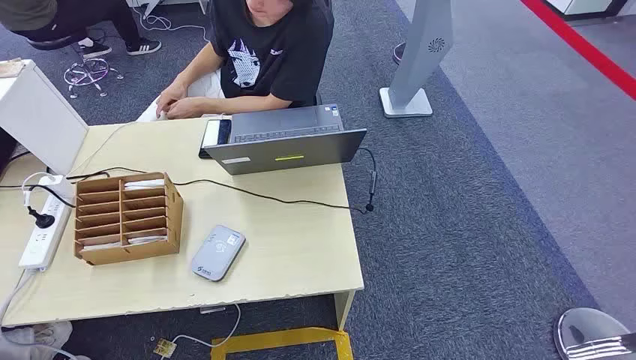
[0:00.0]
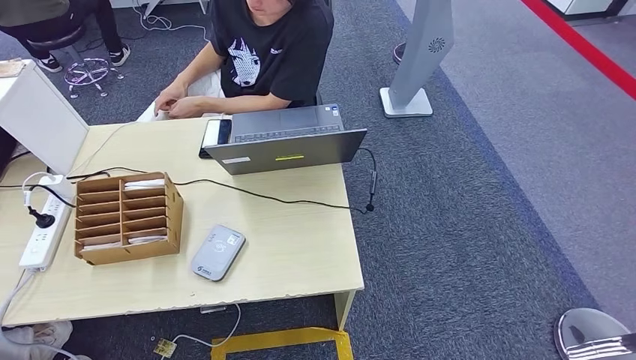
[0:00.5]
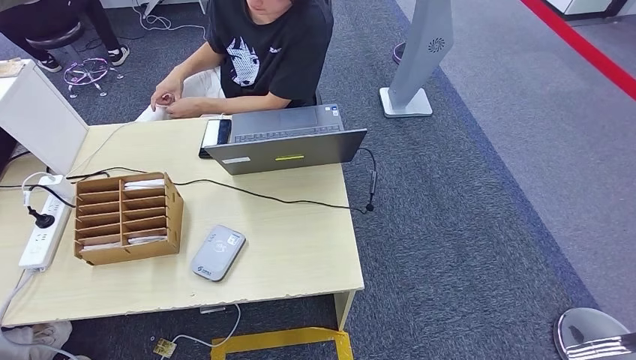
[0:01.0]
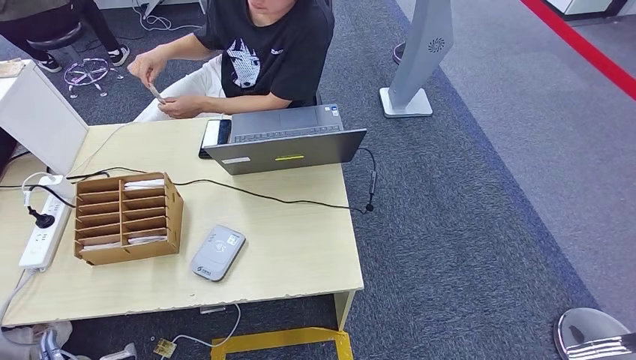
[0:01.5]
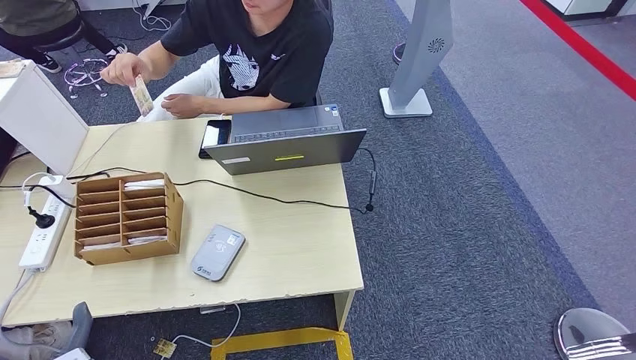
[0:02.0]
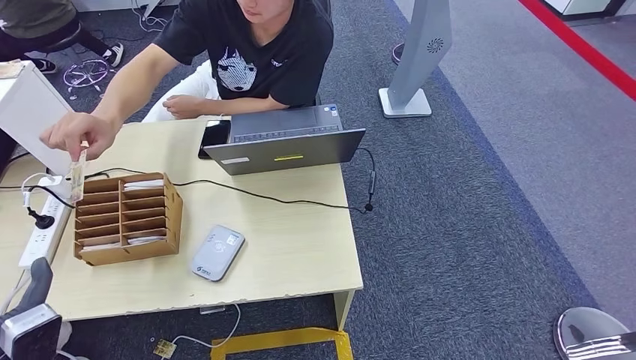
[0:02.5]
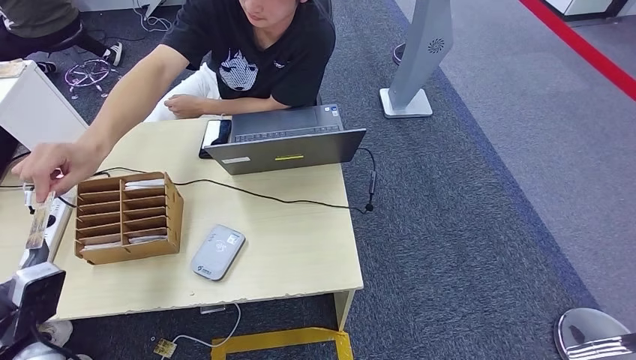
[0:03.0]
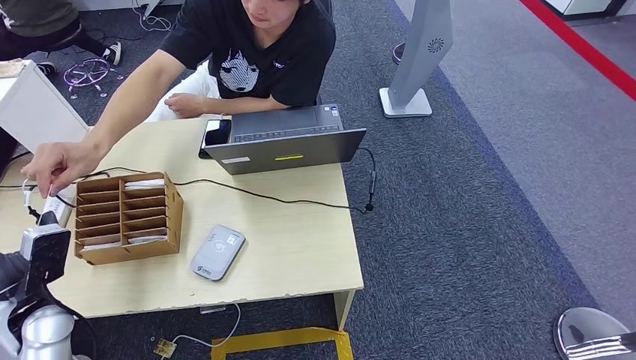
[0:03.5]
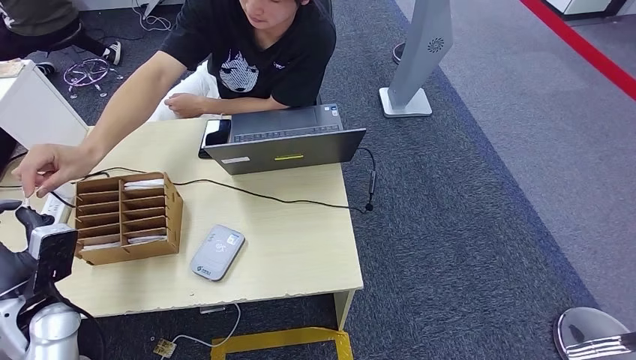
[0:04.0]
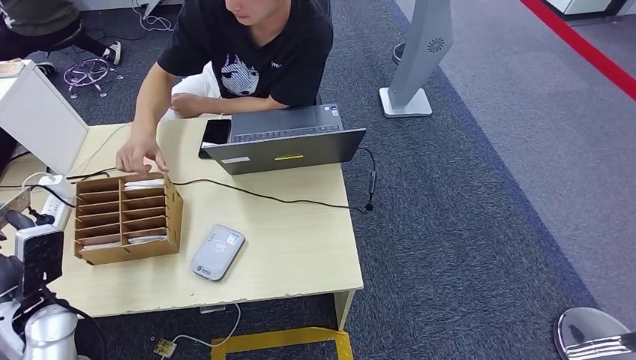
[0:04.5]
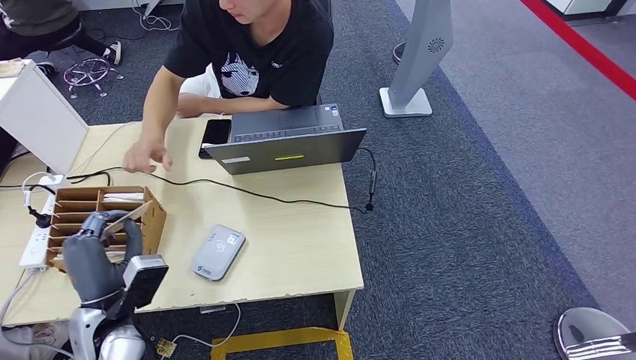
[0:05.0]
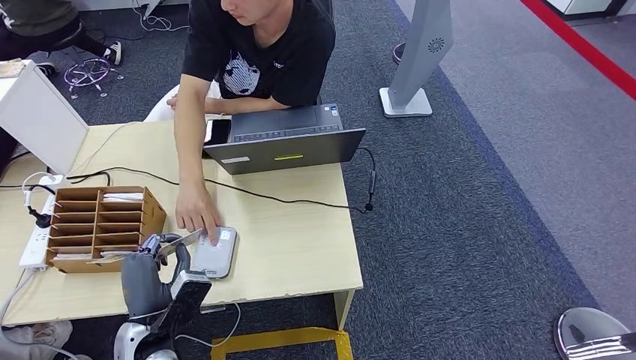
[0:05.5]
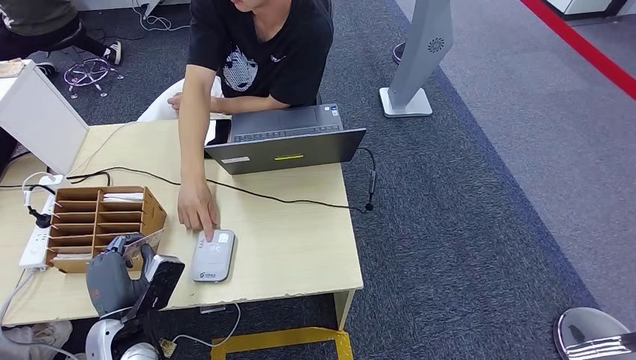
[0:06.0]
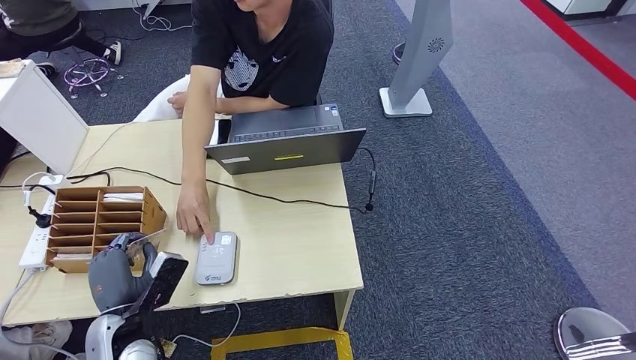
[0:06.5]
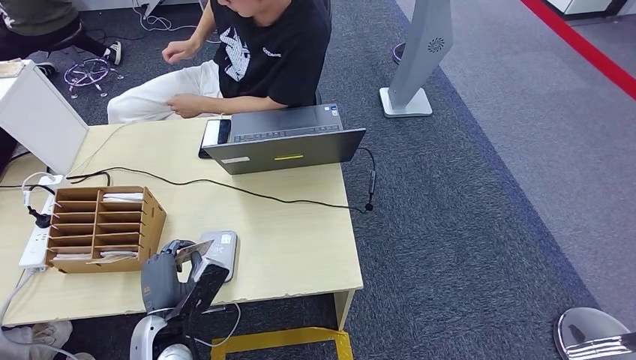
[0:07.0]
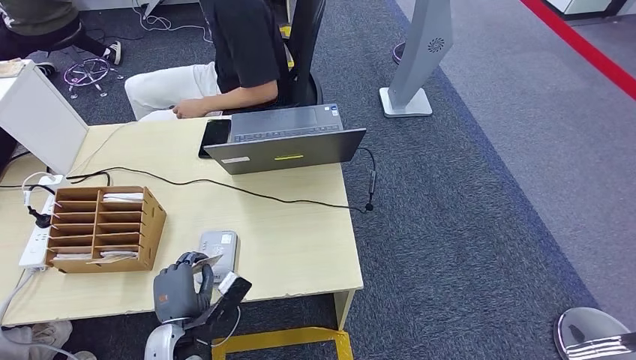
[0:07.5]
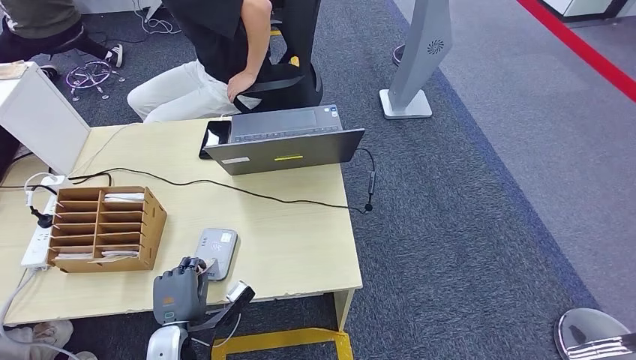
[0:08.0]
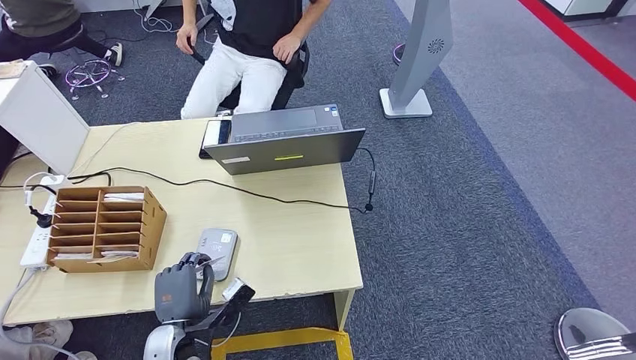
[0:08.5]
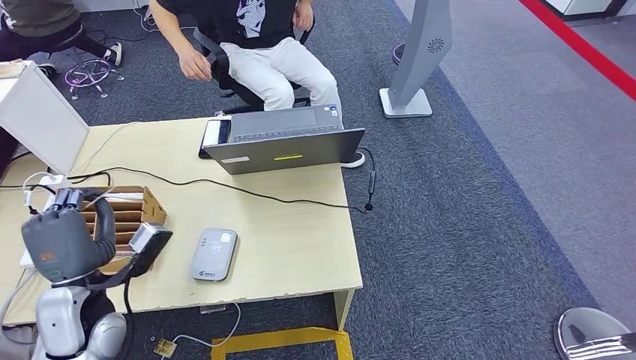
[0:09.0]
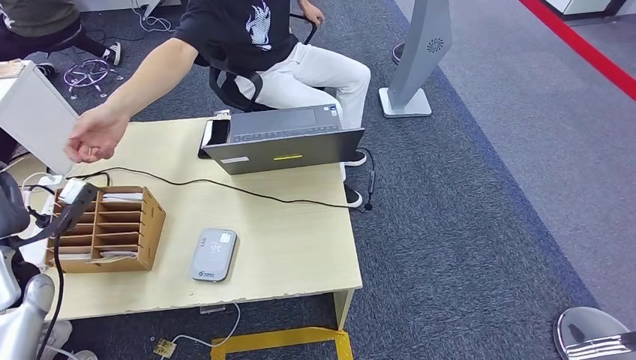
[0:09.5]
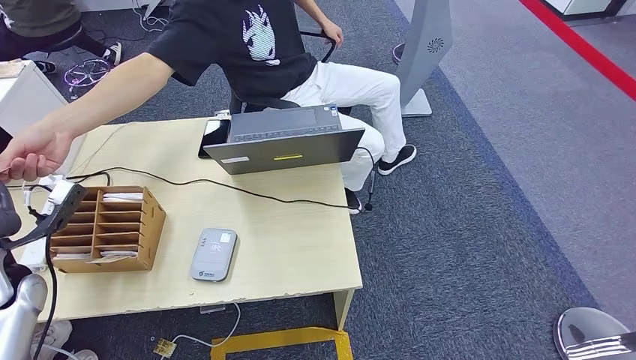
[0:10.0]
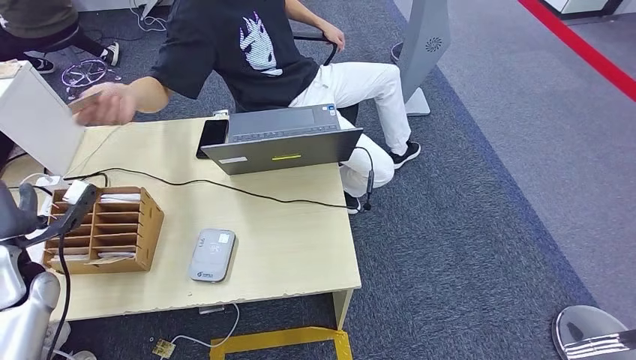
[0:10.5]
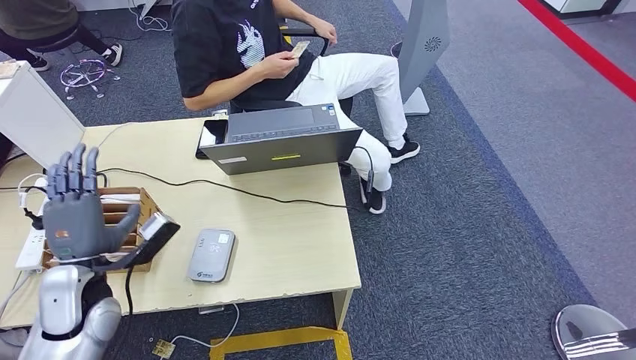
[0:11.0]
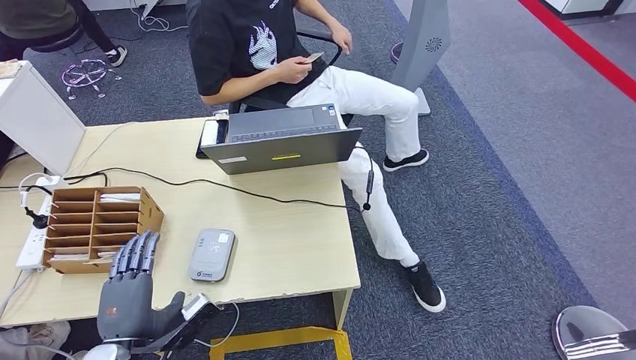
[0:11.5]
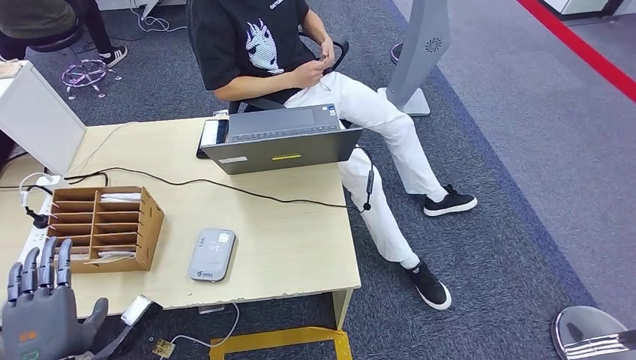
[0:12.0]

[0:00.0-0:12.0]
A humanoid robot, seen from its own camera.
Step, 0:00.0 to 0:04.5: Take the ID card from the person's hand.
Step, 0:05.0 to 0:07.5: Place the ID card on the card reader.
Step, 0:08.0 to 0:10.5: Hand the ID card to the person.
0:02.0 to 0:04.0: The left hand is displaced forward and to the left by some 20 cm.
0:04.0 to 0:06.0: The left hand shifts approximately 15 cm to the right, backward and downward.

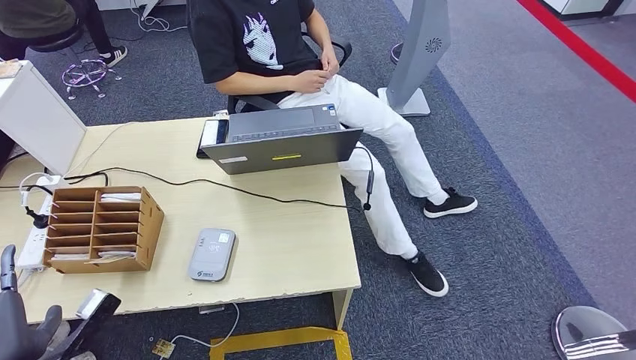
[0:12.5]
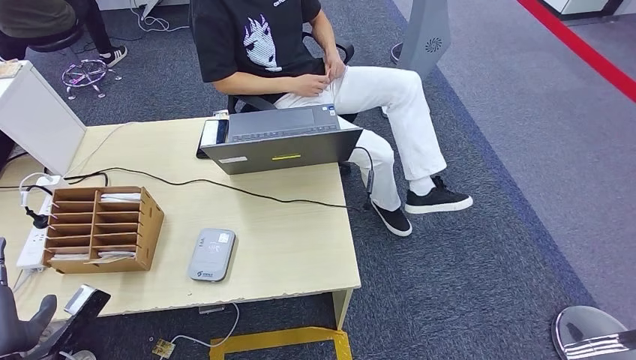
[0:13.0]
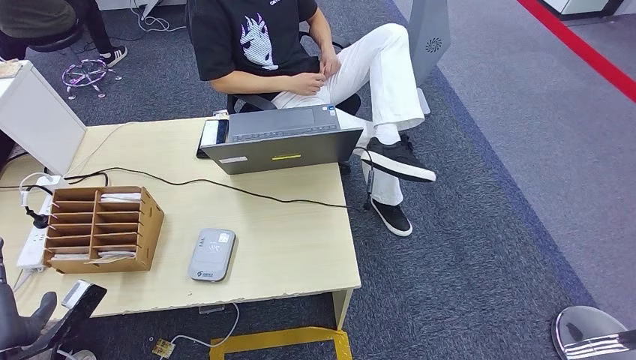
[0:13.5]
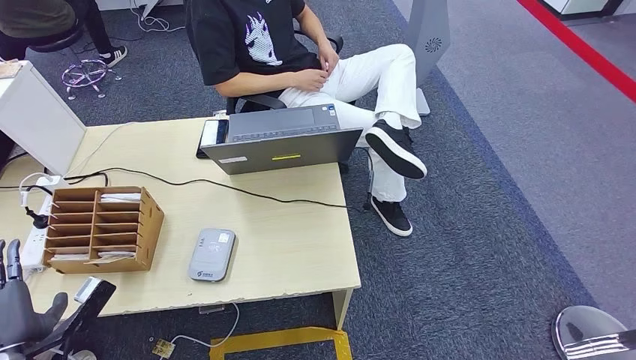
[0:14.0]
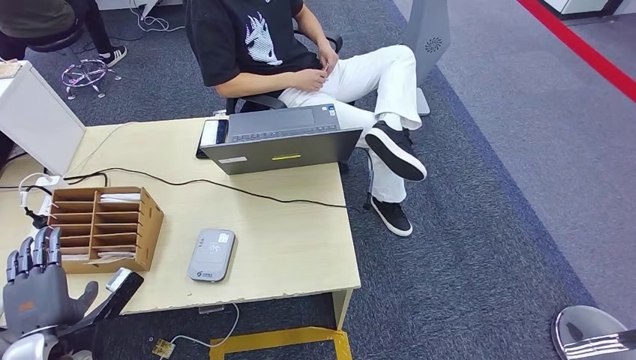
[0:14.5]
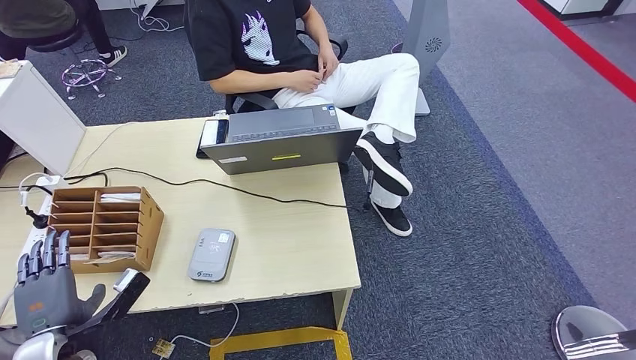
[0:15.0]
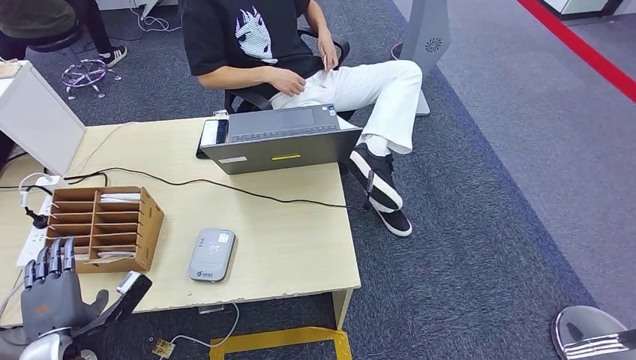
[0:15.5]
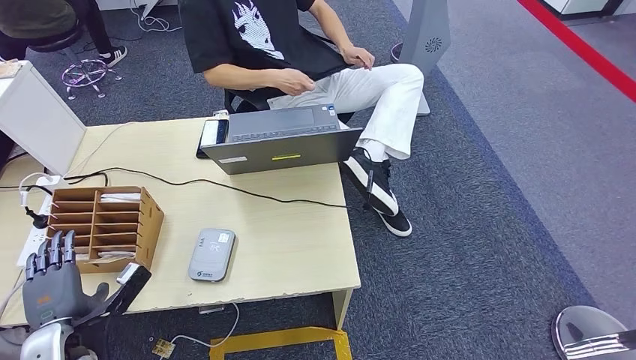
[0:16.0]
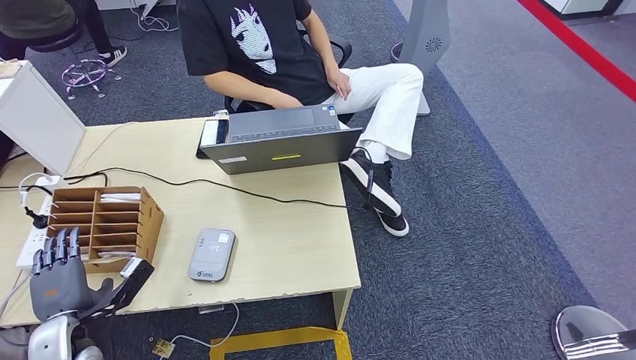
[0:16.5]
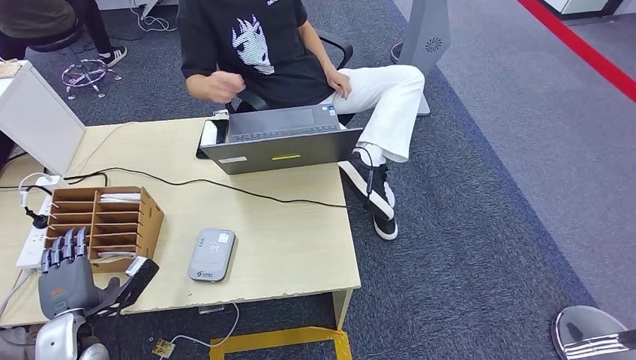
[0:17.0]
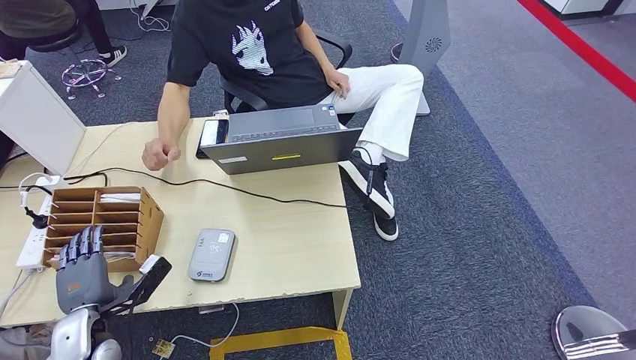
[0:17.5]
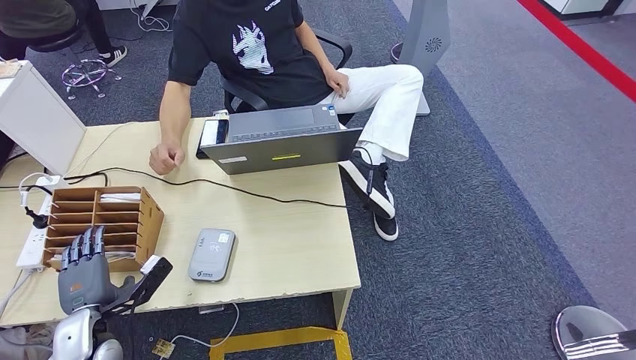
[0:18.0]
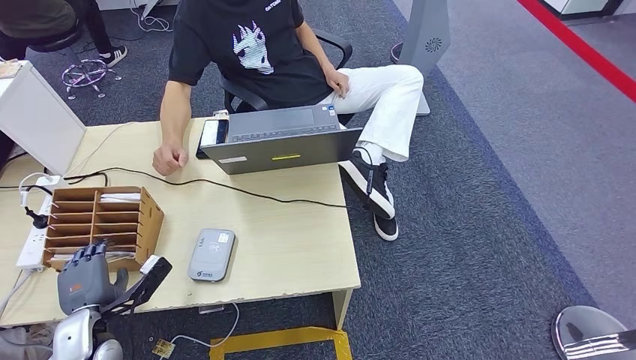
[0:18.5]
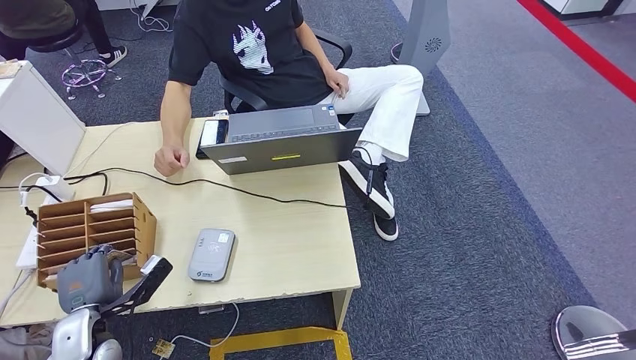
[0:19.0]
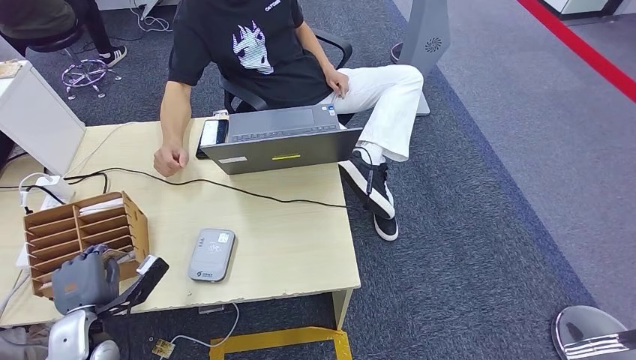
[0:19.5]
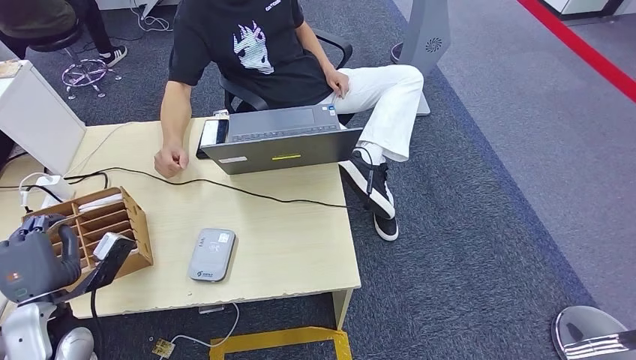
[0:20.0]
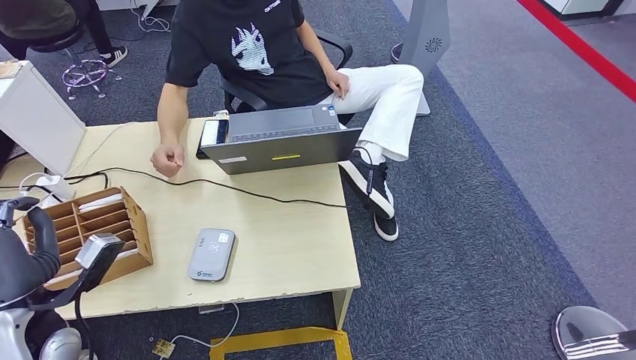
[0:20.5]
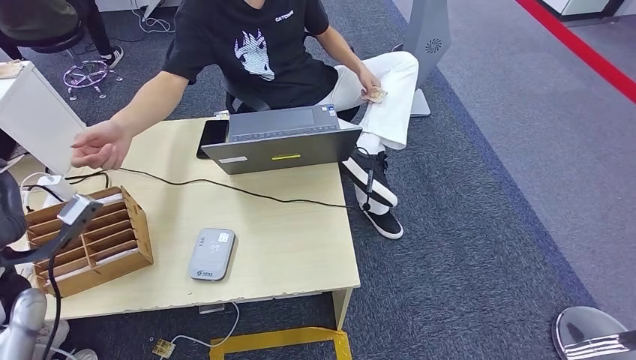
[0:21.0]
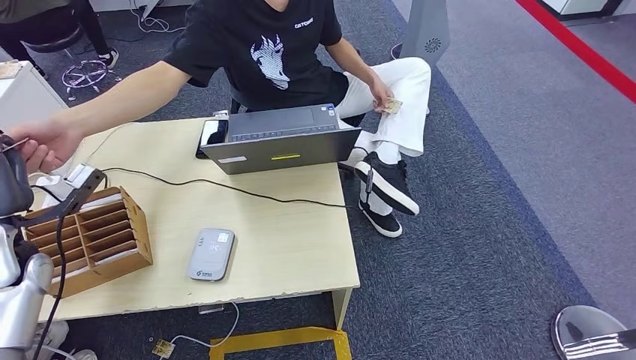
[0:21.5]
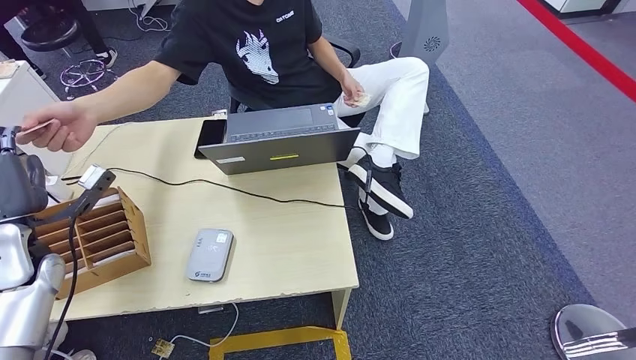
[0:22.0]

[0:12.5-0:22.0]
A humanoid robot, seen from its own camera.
Step, 0:12.5 to 0:20.0: Pick up the room key from the key card box.
Step, 0:20.5 to 0:22.0: Hand the room key to the person.
0:12.5 to 0:14.5: The left hand is displaced forward and downward by roughly 10 cm.
0:14.5 to 0:18.0: The hands stay close to where they were, moving slightly.
0:18.0 to 0:20.0: The left hand shifts roughly 5 cm upward.
